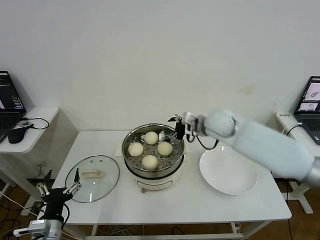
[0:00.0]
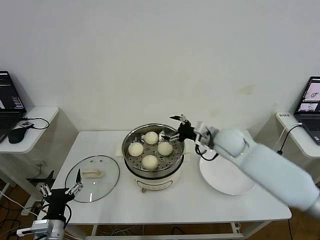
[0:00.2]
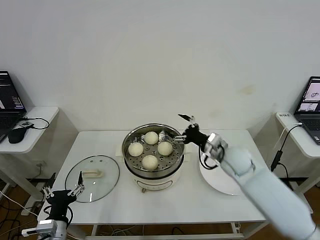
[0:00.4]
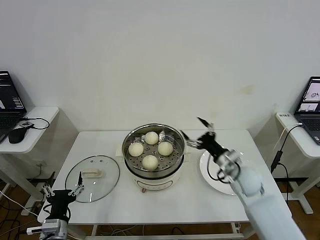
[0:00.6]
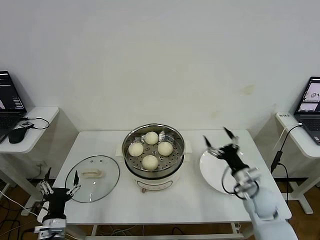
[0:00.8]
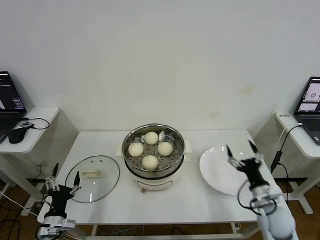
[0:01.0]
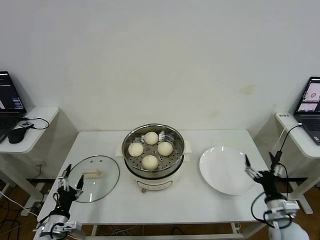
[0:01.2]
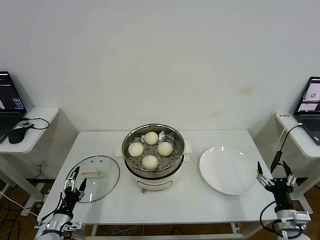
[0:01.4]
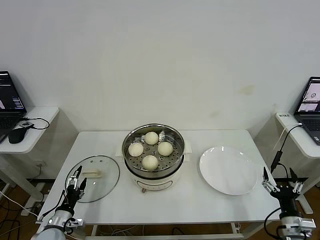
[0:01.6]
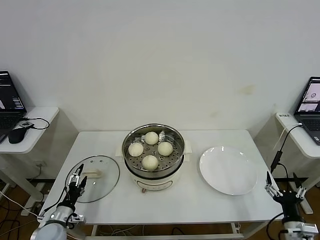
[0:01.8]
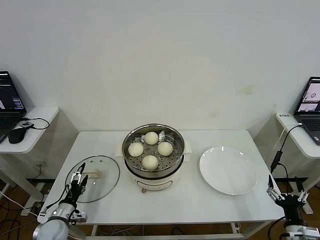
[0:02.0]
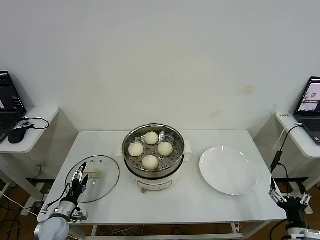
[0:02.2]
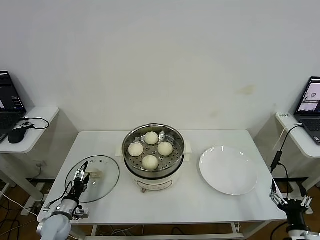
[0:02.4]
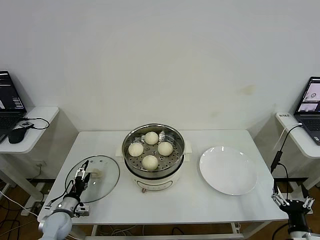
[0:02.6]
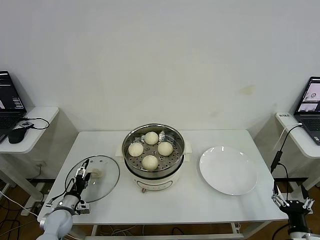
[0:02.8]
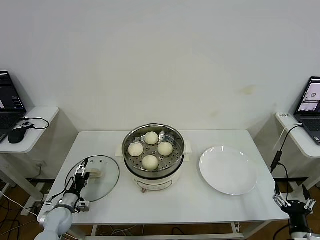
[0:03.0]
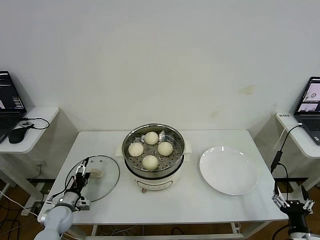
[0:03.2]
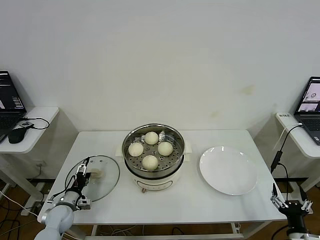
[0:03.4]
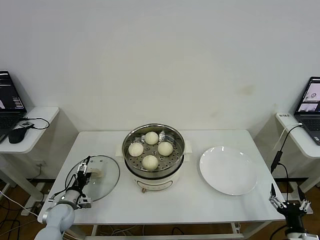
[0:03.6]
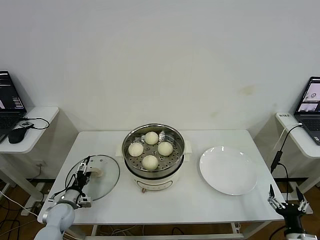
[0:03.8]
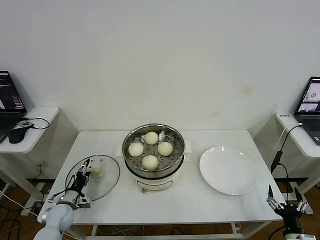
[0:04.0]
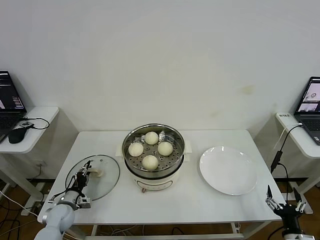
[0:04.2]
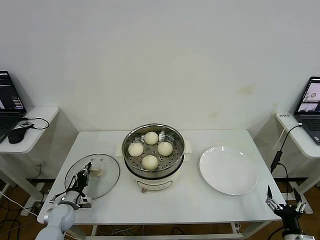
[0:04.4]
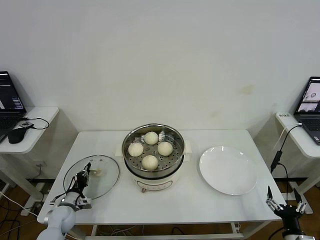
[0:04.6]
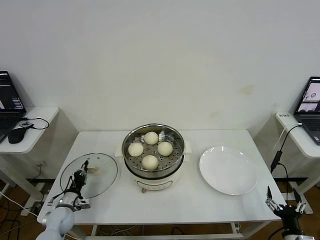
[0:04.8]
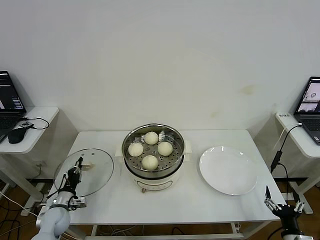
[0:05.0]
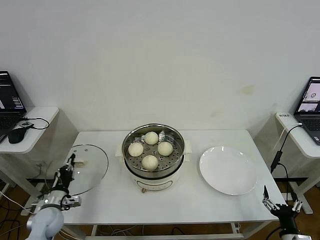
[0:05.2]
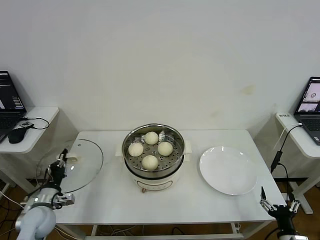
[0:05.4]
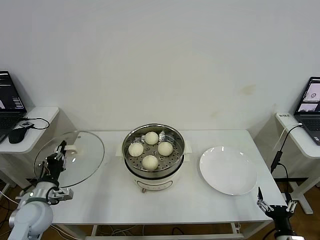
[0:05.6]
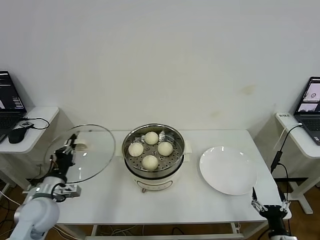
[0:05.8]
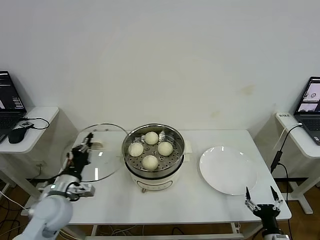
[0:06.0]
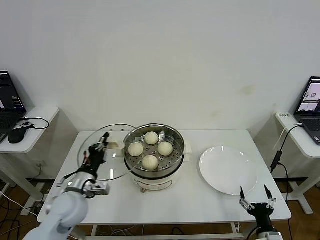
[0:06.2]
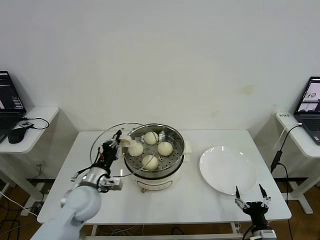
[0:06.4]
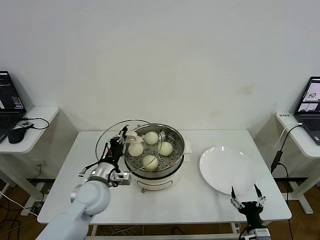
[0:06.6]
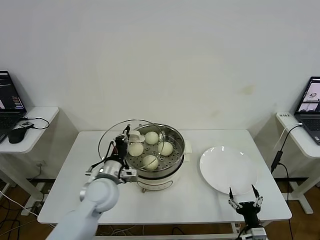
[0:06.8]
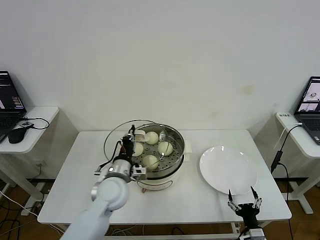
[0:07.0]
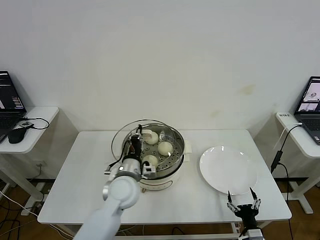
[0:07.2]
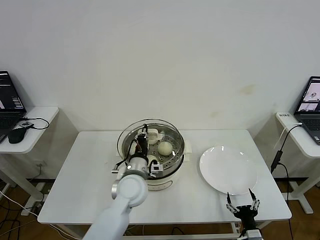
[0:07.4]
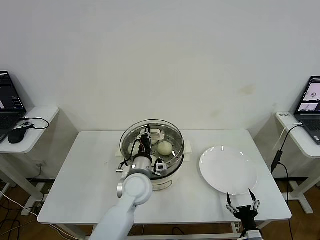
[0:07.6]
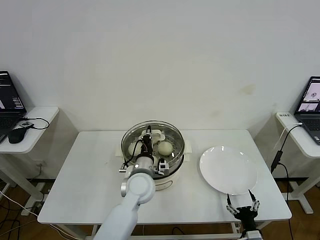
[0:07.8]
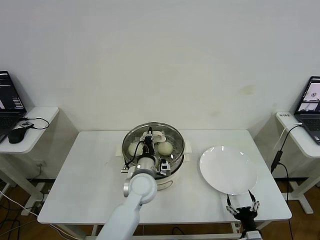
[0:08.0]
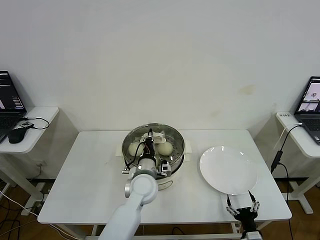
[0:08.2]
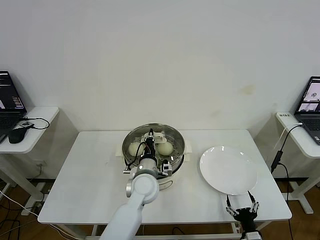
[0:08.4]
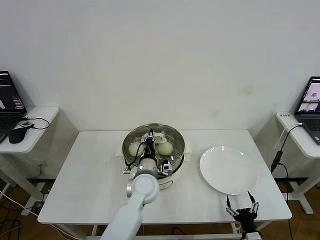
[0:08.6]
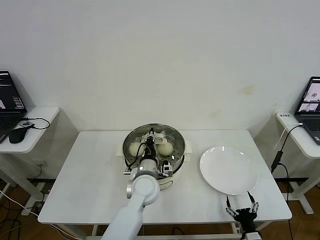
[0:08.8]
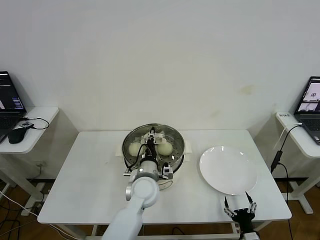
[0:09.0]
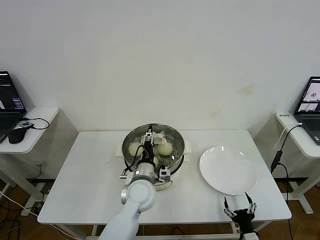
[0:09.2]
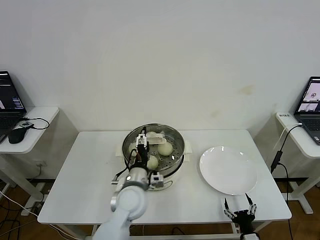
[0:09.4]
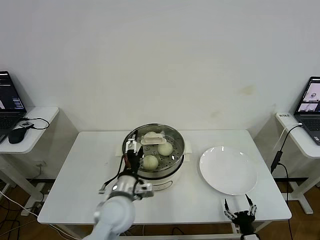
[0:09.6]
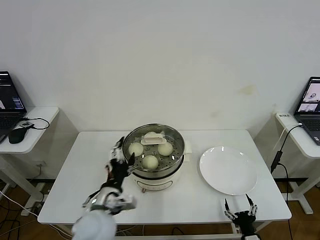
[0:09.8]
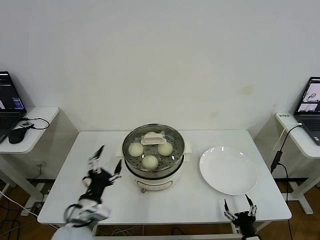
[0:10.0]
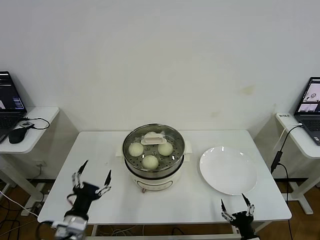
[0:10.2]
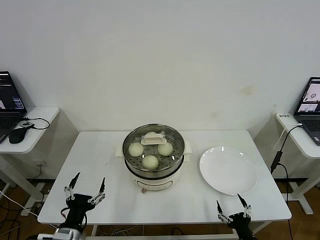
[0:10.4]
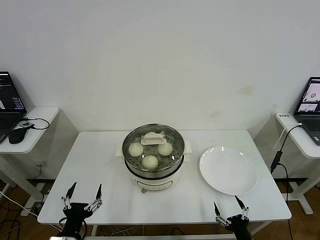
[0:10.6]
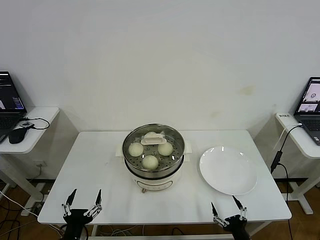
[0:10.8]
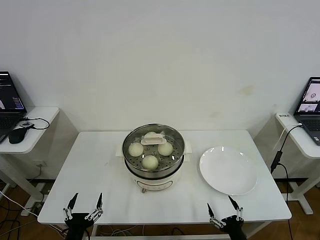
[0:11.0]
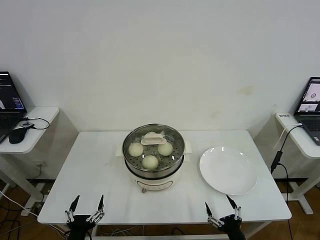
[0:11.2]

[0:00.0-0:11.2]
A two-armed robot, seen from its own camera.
Step, 0:00.0 to 0:04.6: Grasp the pot lid with left gripper.
Step, 0:04.8 to 0:09.2: Place the pot lid on the steamer with left gripper.
0:00.0 to 0:01.6: The right gripper heads backward, downward and to the right, covering about 40 cm, while the left gripper moves downward, forward and to the left, approximately 15 cm.
0:01.6 to 0:03.2: The left gripper goes some 10 cm forward; the right gripper moves approximately 5 cm.
0:03.2 to 0:04.8: The left gripper closes up.
0:04.8 to 0:06.4: The right gripper travels to the left by about 5 cm, while the left gripper goes roughly 25 cm upward and to the right.
0:06.4 to 0:08.0: The left gripper heads to the right, covering about 20 cm.
0:08.0 to 0:09.6: The left gripper is displaced backward by some 5 cm, and opens up.
0:09.6 to 0:11.2: The right gripper moves upward, some 5 cm. The left gripper is displaced backward, to the left and downward by approximately 25 cm.

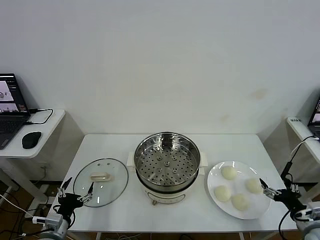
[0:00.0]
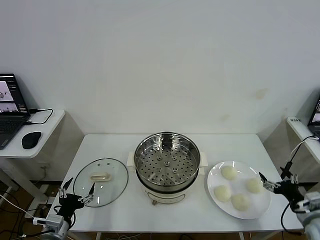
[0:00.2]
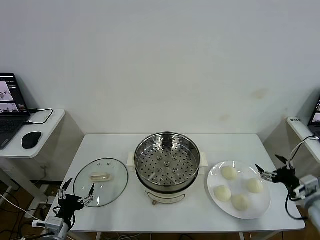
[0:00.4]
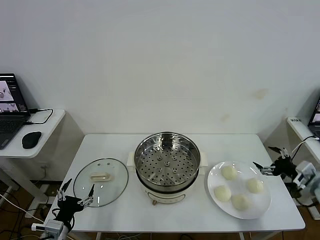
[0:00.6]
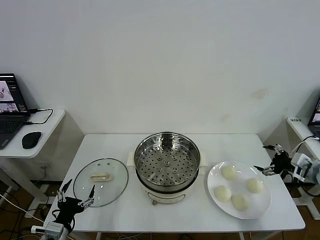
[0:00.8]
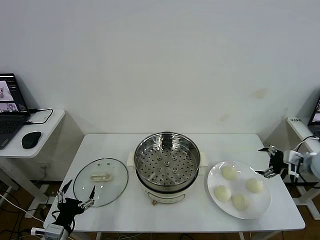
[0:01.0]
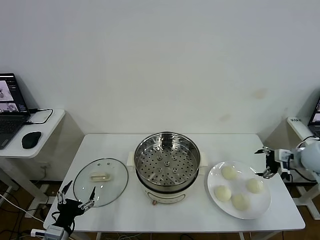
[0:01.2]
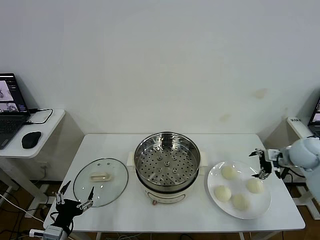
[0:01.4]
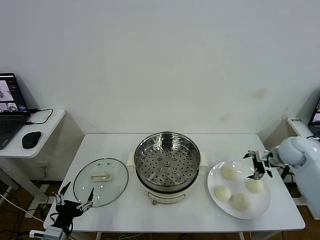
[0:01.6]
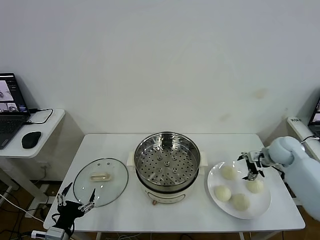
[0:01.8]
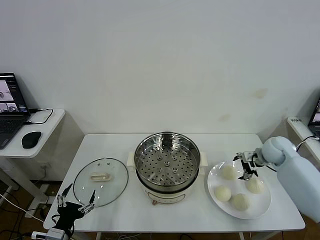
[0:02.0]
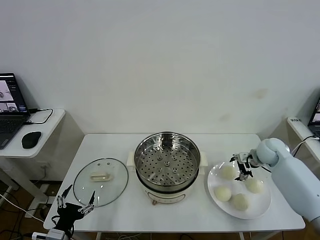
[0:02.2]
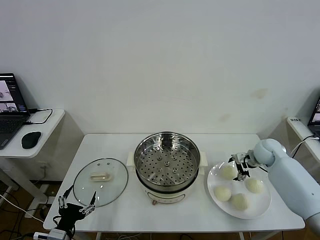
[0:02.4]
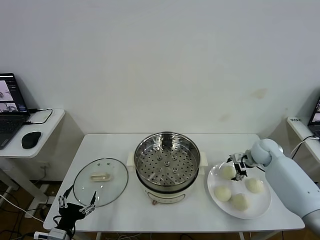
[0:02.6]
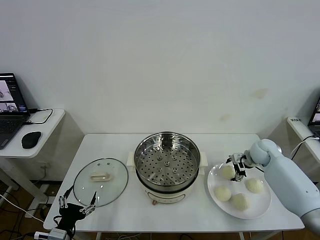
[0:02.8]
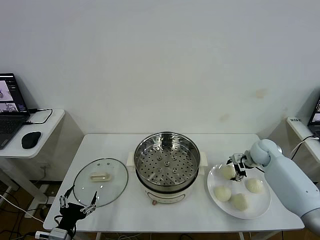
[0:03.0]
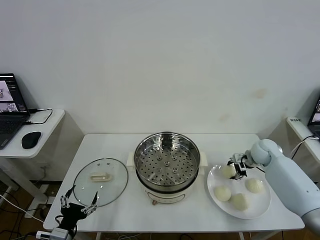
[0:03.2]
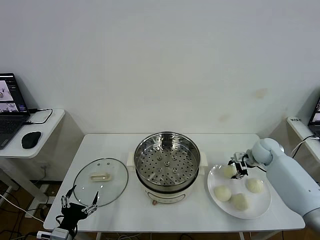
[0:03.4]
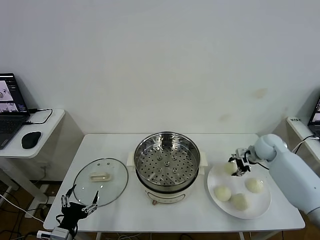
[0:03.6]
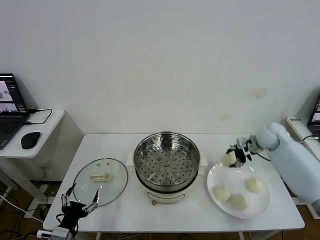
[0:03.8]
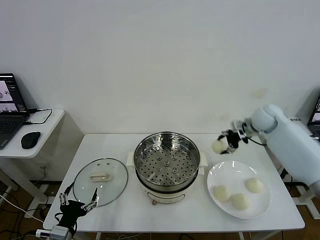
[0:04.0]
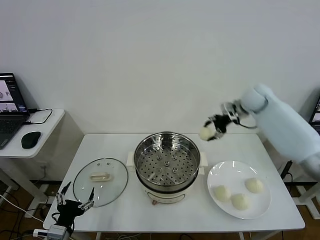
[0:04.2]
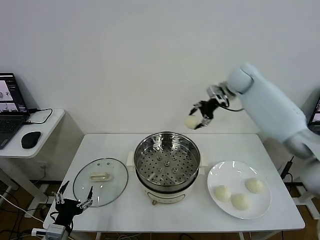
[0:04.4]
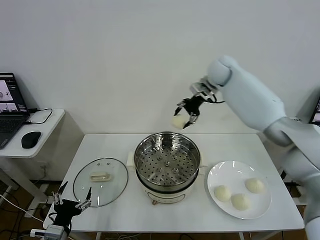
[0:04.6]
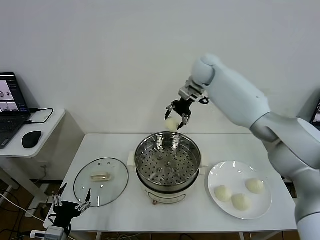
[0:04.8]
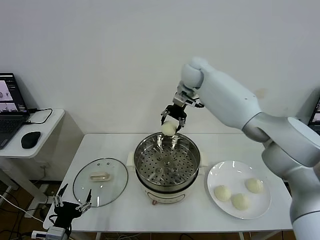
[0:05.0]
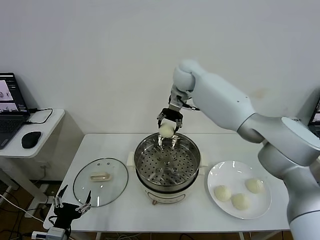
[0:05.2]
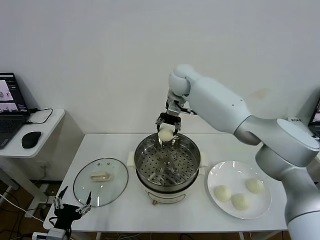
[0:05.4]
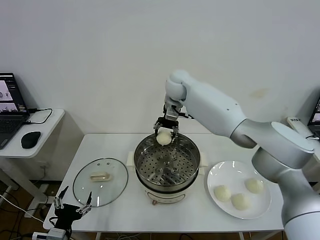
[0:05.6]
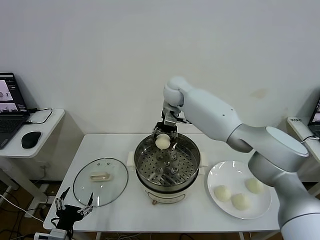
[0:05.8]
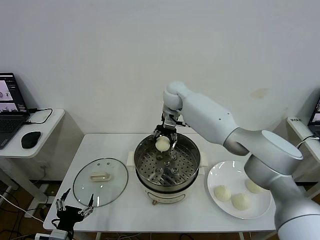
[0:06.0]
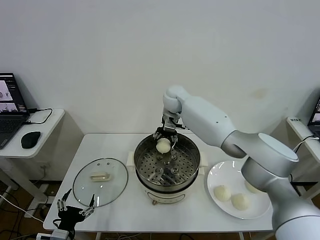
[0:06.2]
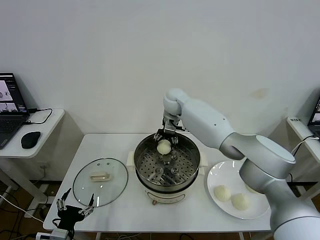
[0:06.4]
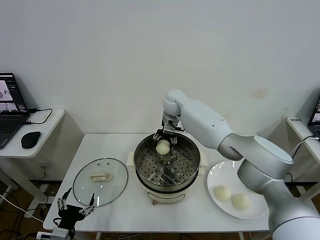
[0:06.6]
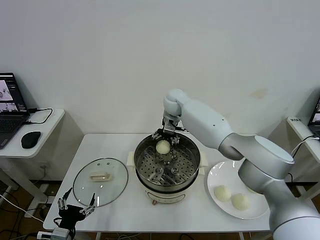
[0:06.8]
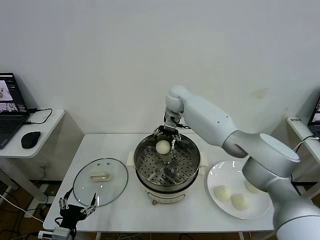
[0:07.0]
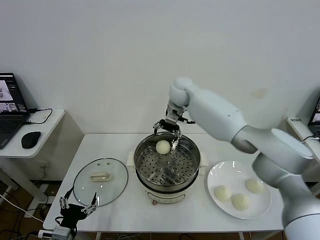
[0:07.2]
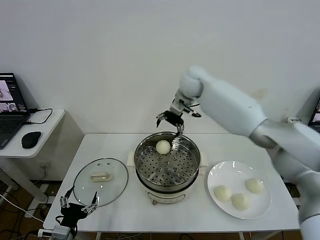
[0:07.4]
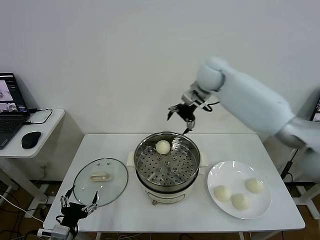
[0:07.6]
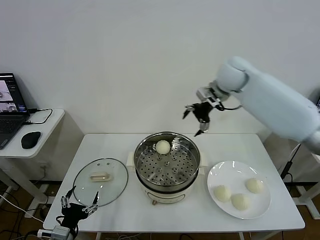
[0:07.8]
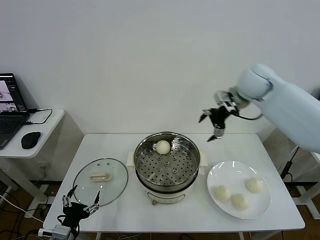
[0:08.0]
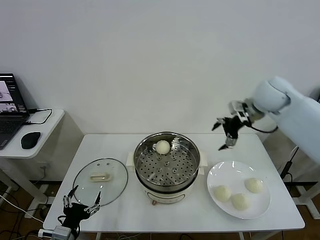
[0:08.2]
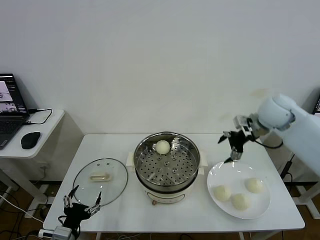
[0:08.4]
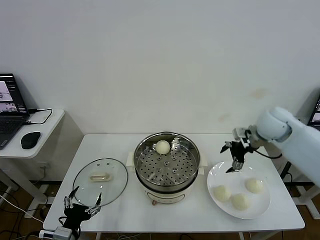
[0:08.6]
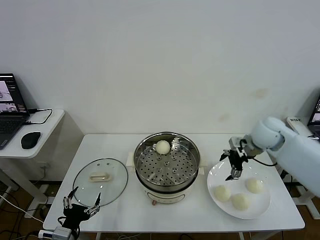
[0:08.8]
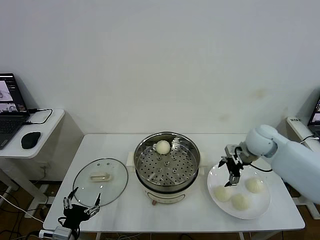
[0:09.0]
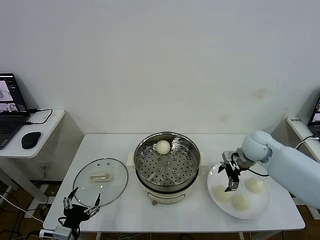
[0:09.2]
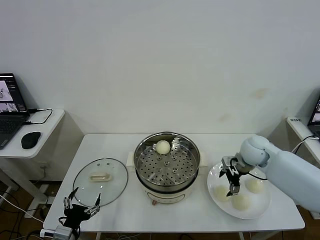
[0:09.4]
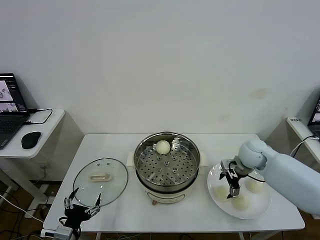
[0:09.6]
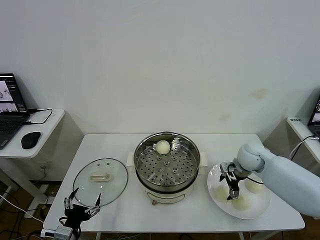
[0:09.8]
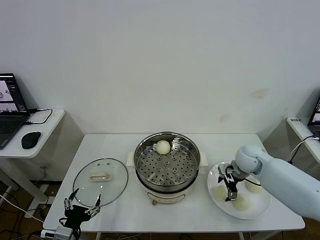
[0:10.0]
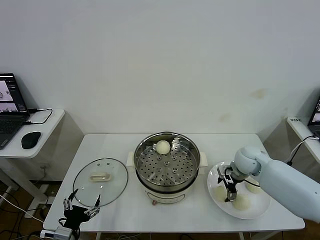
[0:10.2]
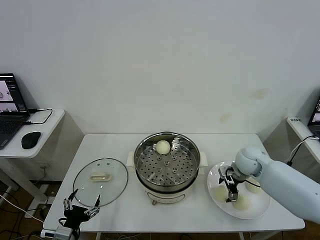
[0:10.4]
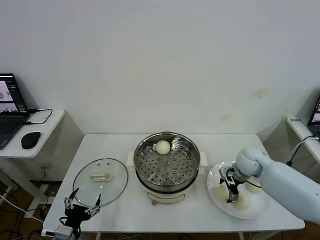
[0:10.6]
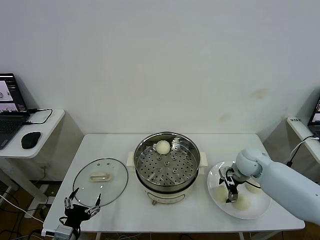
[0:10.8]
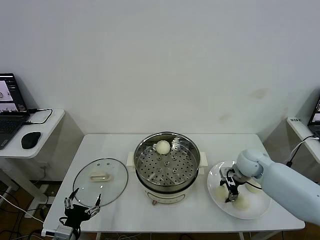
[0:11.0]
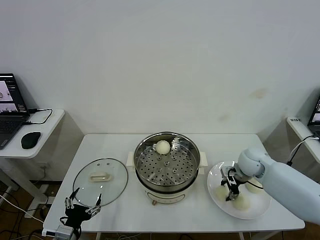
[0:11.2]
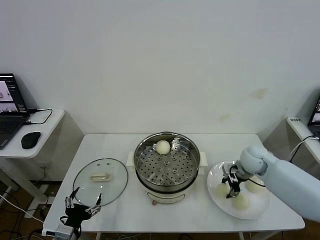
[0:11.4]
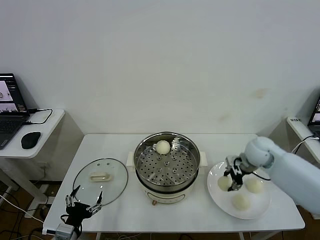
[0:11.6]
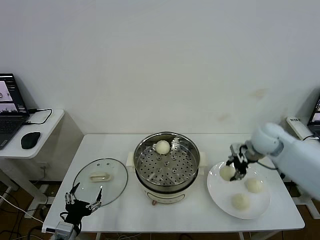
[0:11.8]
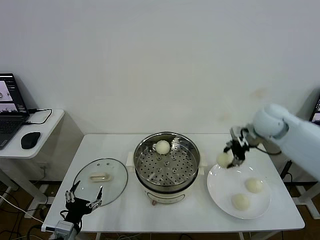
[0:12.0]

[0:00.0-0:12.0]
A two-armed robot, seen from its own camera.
Step, 0:00.0 to 0:03.2: Grasp the baozi in the plate with right gripper.
Step, 0:03.4 to 0:06.8: Place the baozi on the steamer with right gripper.
Step, 0:07.0 to 0:11.2: Grasp the baozi in the plate with right gripper.
0:01.6 to 0:03.0: The right gripper moves downward, approximately 5 cm, and closes.
0:03.0 to 0:04.4: The right gripper goes some 35 cm upward, to the left and forward.
0:04.4 to 0:06.0: The right gripper travels to the left and downward by roughly 20 cm.
0:06.0 to 0:07.6: The right gripper shifts approximately 20 cm to the right and upward, and opens up.
0:07.6 to 0:09.0: The right gripper heads downward, to the right and backward, covering about 25 cm.
0:09.0 to 0:10.4: The right gripper shifts approximately 10 cm downward.
0:10.4 to 0:12.0: The right gripper travels upward by some 20 cm, and closes its fingers.
